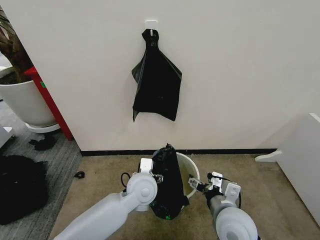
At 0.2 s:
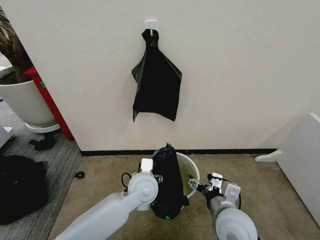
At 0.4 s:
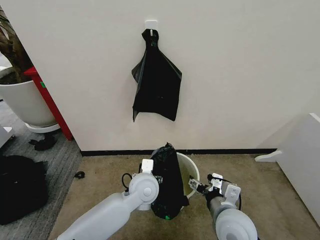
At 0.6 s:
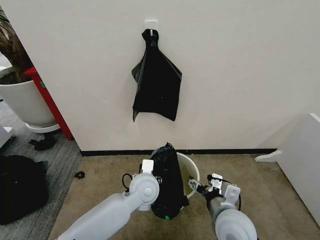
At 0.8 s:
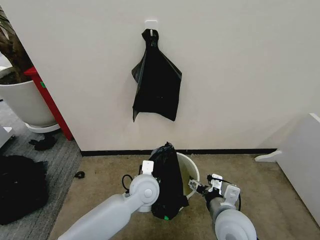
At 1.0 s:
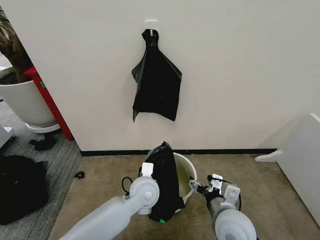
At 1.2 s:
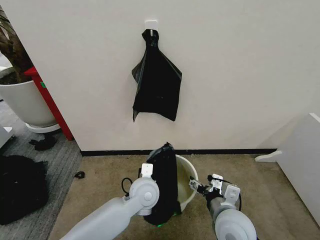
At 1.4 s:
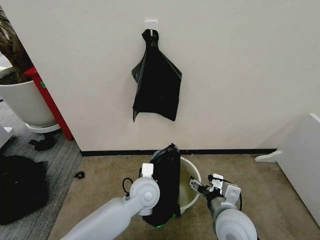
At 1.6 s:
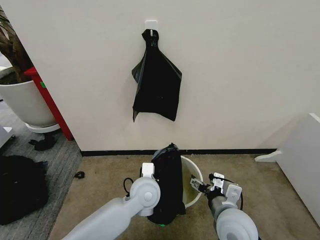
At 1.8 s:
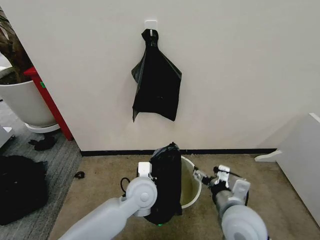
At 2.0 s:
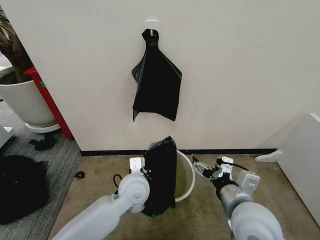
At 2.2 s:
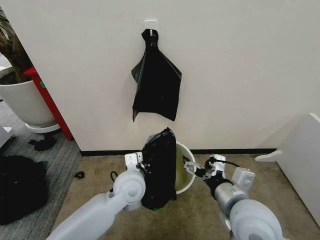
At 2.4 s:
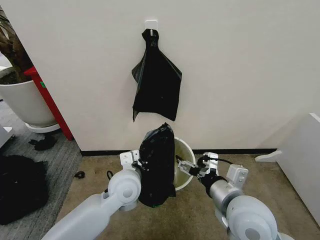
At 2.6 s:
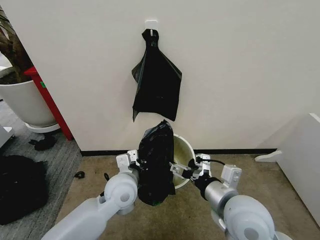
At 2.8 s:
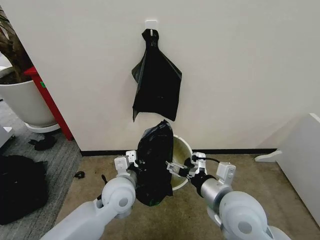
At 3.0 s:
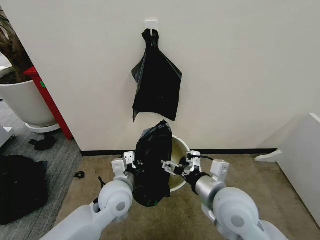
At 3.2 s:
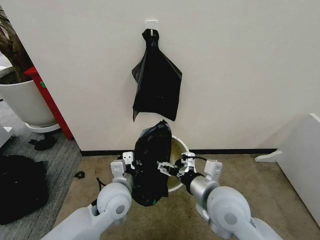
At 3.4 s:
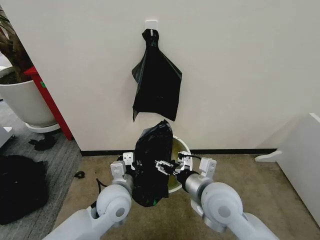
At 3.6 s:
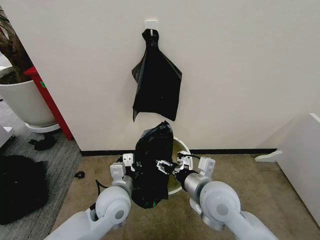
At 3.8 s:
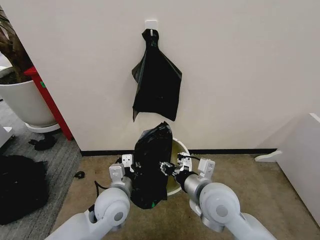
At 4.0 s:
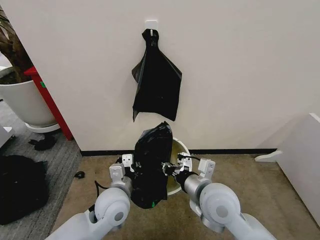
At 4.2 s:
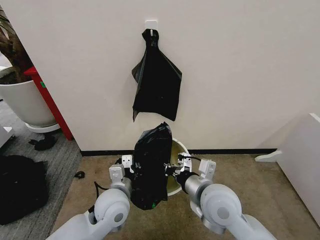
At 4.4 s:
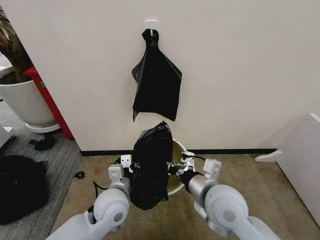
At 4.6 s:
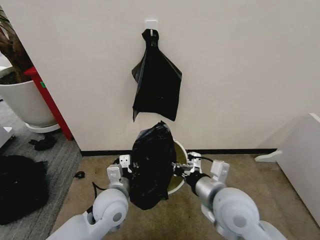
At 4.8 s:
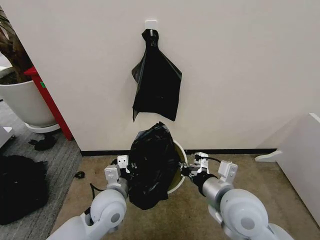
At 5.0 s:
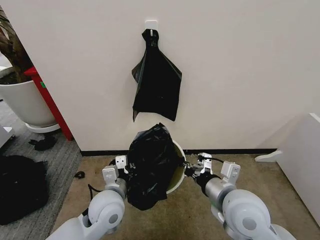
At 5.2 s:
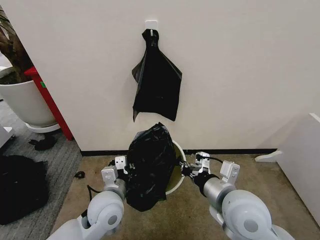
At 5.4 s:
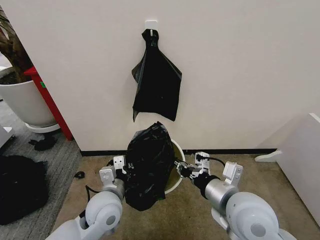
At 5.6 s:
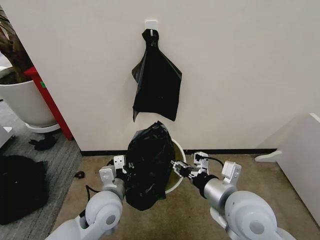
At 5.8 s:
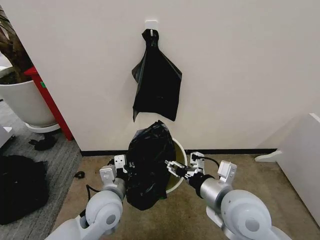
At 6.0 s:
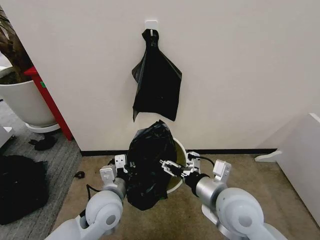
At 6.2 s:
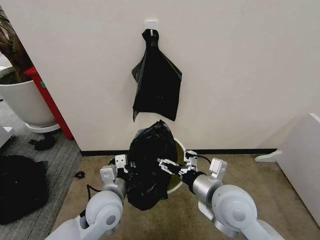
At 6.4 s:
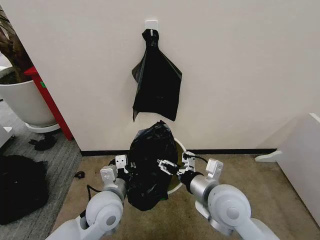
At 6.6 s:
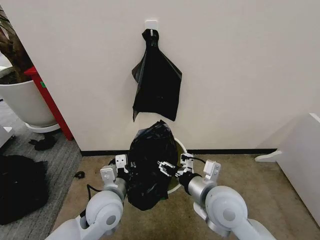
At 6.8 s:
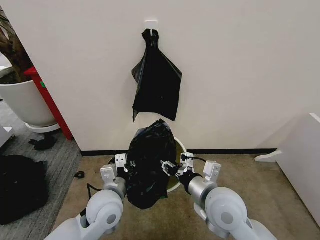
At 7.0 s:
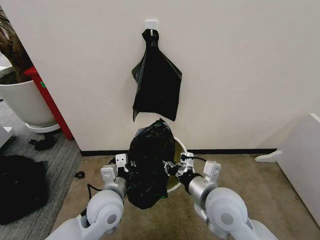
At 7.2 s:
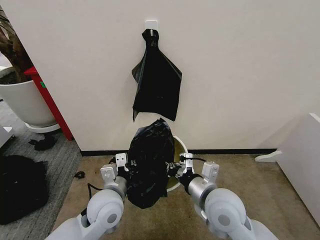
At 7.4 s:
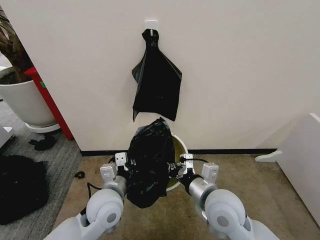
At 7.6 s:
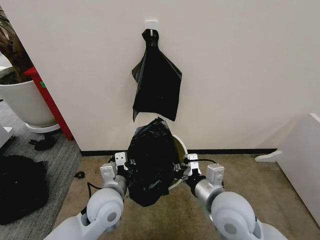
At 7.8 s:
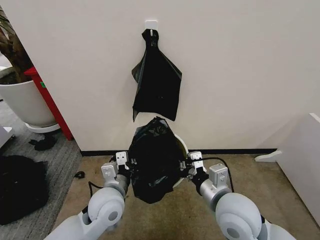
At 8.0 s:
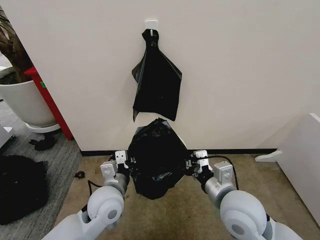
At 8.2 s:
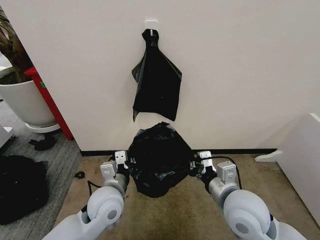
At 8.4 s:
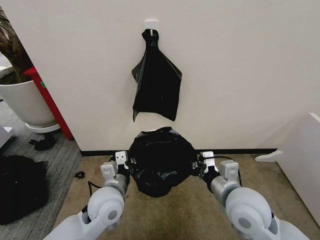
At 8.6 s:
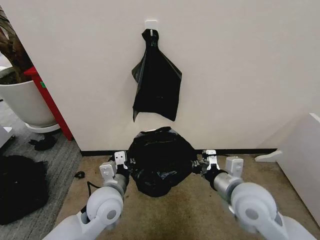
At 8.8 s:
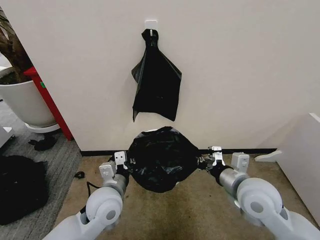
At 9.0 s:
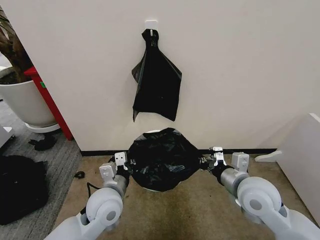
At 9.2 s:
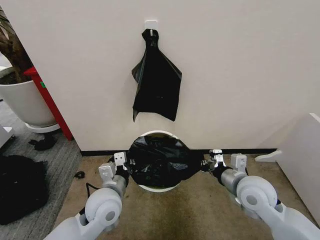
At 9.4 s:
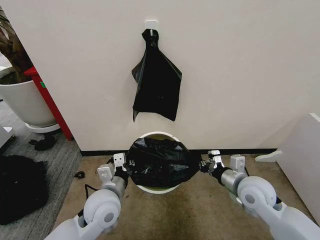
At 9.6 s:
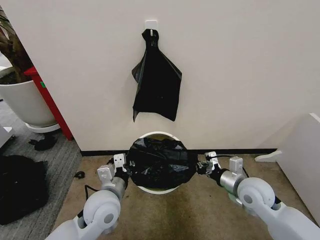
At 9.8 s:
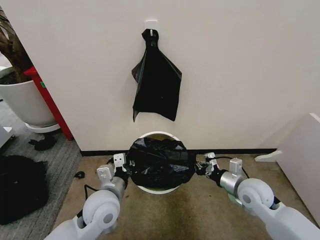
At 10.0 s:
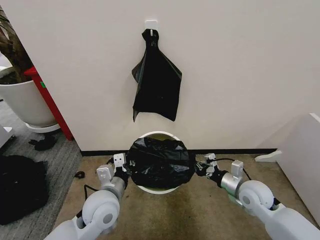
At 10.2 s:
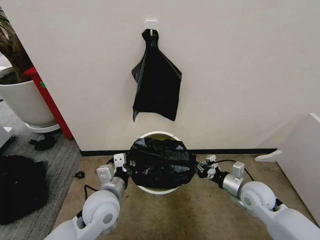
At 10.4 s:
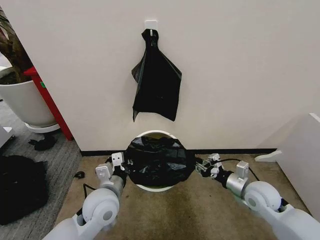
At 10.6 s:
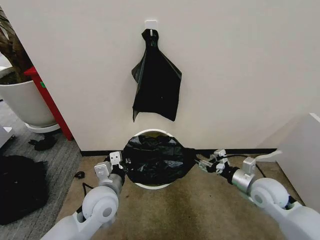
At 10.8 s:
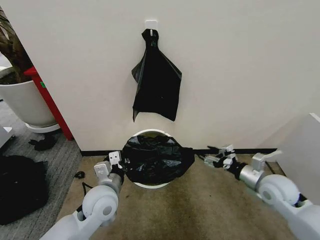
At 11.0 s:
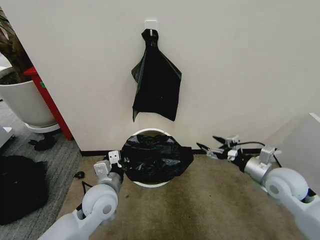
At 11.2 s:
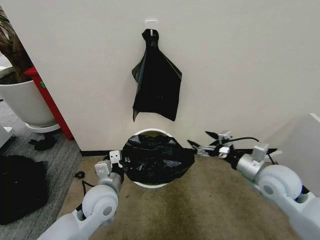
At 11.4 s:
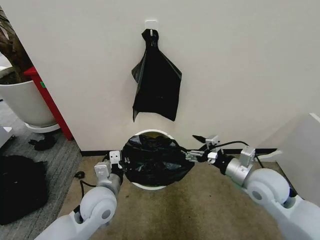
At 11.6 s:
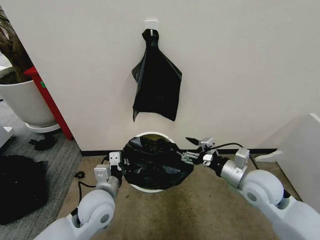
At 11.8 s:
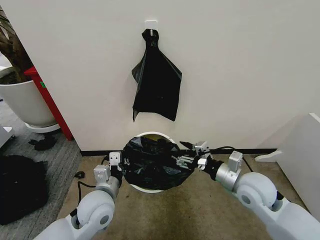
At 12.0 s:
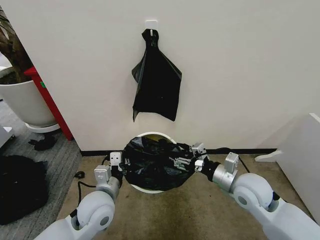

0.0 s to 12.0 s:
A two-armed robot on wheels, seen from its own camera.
Task of the whole recording: Place the garbage bag over the trash bin.
0.0 to 1.6 s: The left gripper closes its fingers.
1.6 to 3.0 s: The left gripper shifts some 10 cm to the left. The right gripper moves upward, approximately 5 cm.
3.0 to 4.4 s: The right gripper closes its fingers.
4.4 to 6.0 s: The right gripper opens up.
6.0 to 7.6 s: The right gripper closes.
7.6 to 9.0 s: The right gripper travels to the right by roughly 10 cm.
9.0 to 10.4 s: The right gripper shifts roughly 15 cm downward and to the right.
10.4 to 12.0 s: The right gripper travels upward and to the left by some 10 cm, and opens.

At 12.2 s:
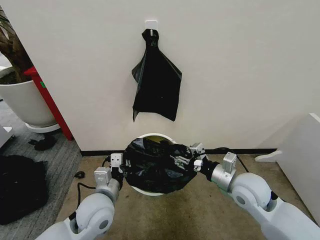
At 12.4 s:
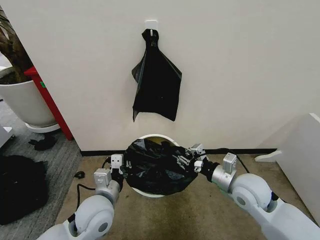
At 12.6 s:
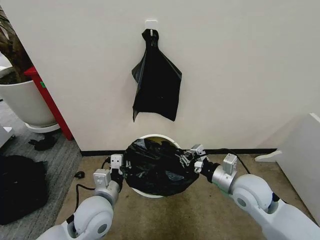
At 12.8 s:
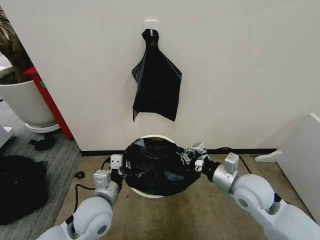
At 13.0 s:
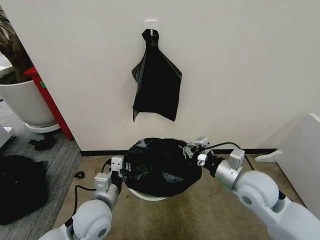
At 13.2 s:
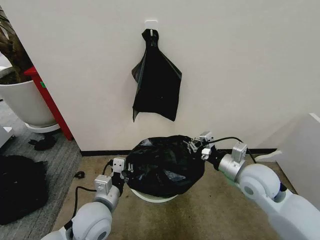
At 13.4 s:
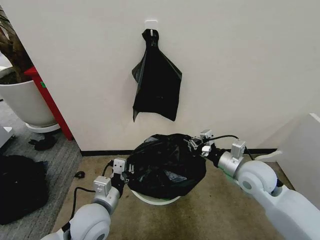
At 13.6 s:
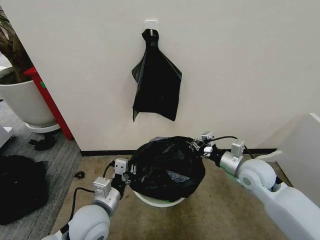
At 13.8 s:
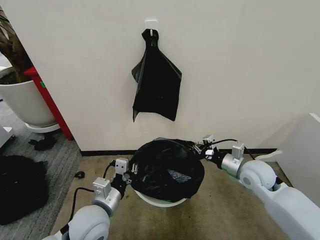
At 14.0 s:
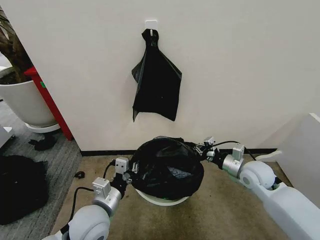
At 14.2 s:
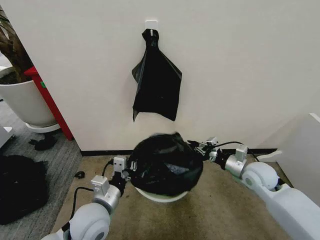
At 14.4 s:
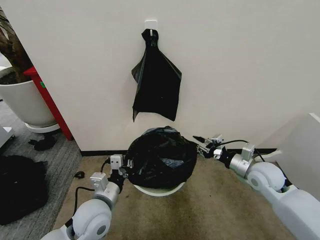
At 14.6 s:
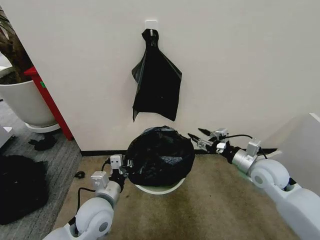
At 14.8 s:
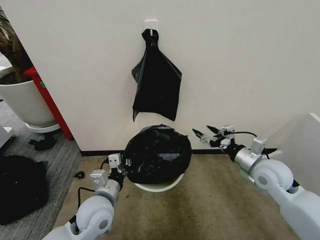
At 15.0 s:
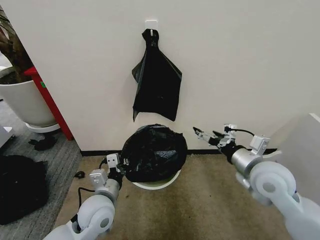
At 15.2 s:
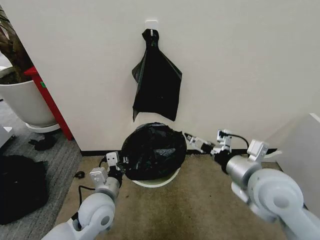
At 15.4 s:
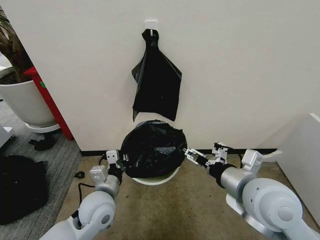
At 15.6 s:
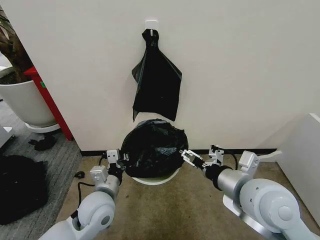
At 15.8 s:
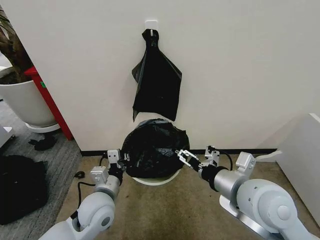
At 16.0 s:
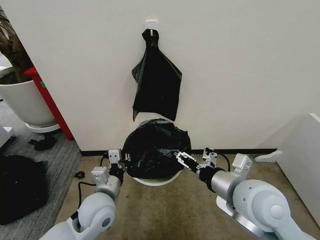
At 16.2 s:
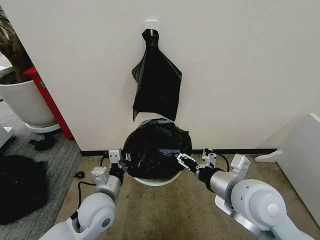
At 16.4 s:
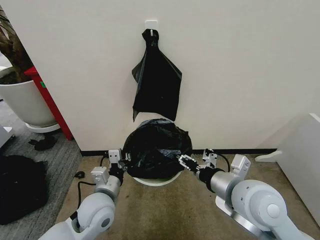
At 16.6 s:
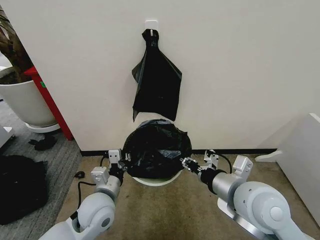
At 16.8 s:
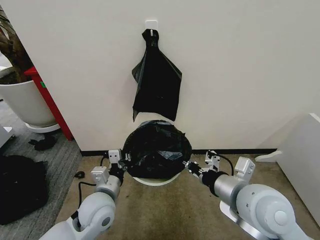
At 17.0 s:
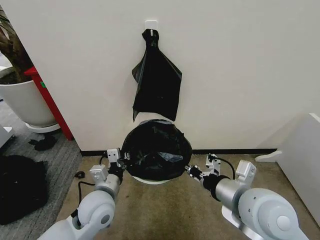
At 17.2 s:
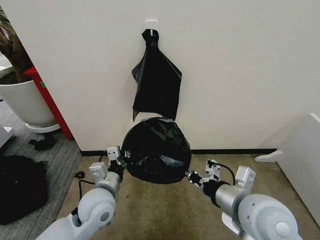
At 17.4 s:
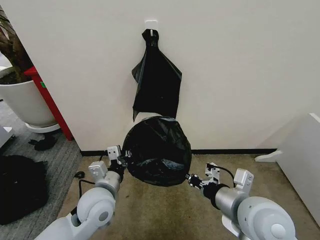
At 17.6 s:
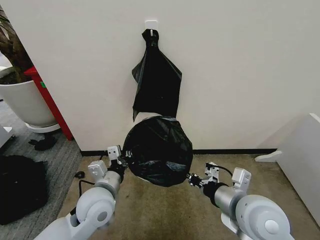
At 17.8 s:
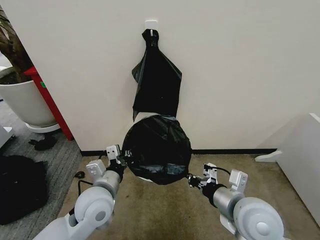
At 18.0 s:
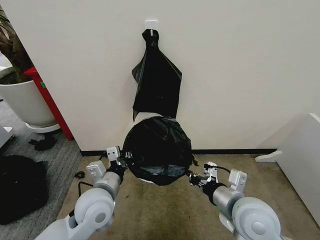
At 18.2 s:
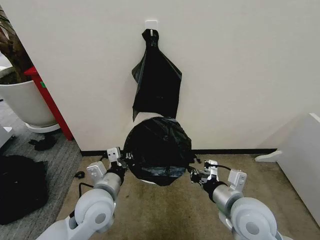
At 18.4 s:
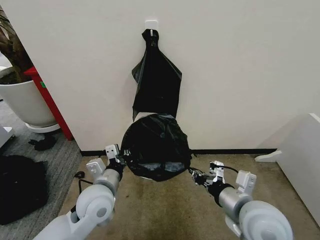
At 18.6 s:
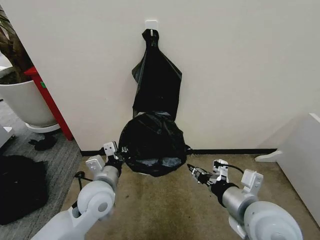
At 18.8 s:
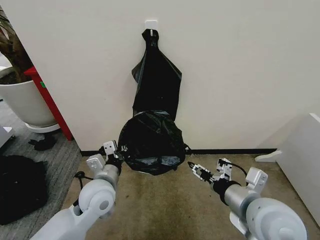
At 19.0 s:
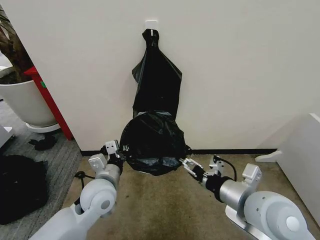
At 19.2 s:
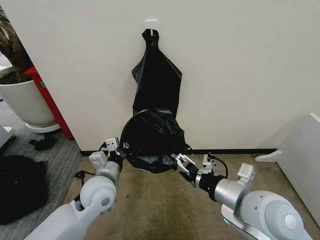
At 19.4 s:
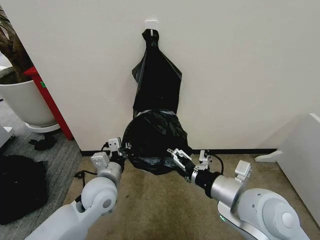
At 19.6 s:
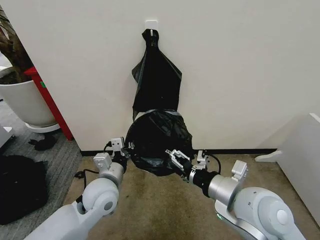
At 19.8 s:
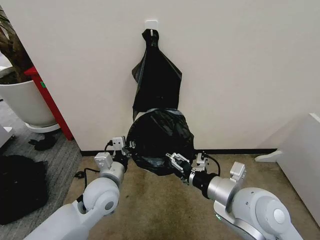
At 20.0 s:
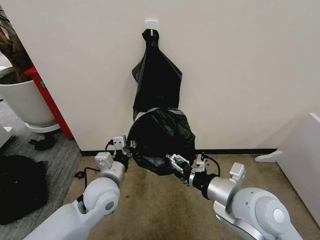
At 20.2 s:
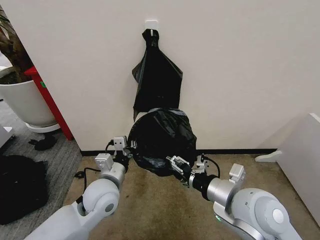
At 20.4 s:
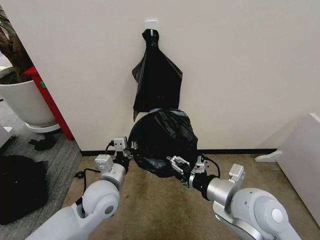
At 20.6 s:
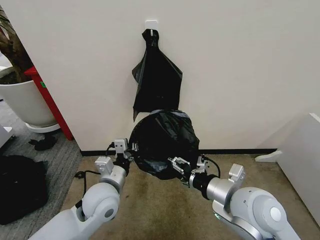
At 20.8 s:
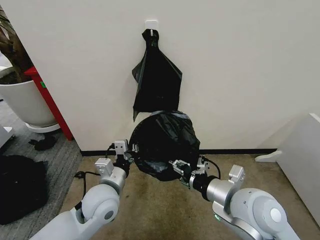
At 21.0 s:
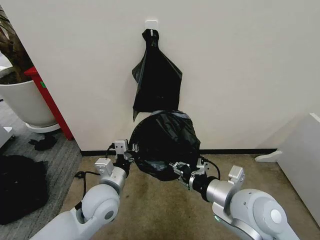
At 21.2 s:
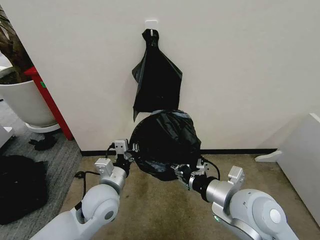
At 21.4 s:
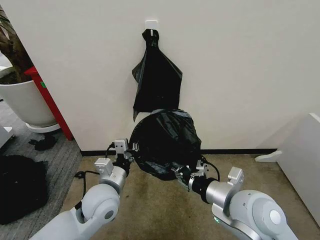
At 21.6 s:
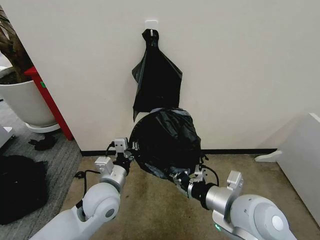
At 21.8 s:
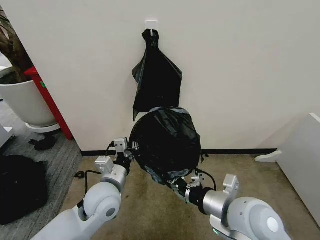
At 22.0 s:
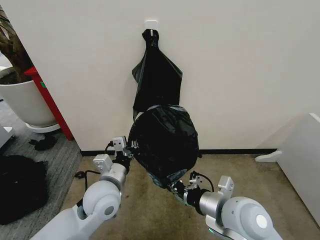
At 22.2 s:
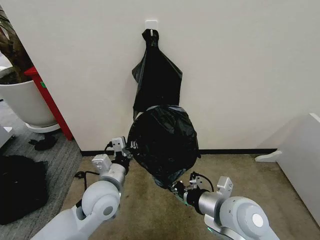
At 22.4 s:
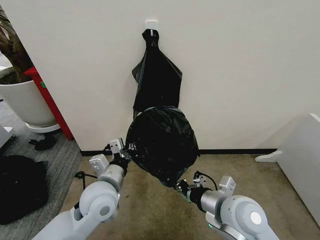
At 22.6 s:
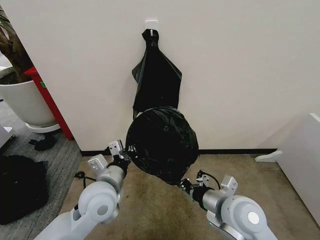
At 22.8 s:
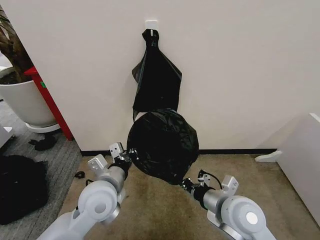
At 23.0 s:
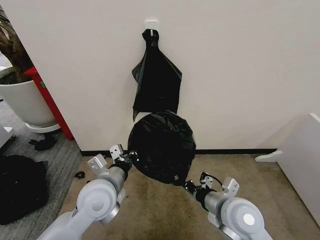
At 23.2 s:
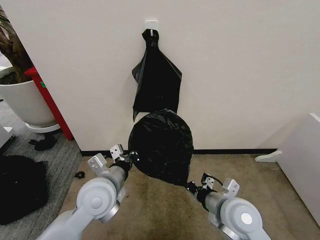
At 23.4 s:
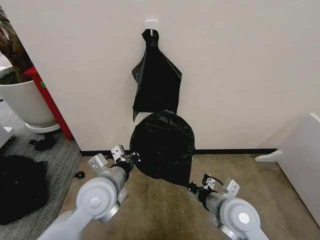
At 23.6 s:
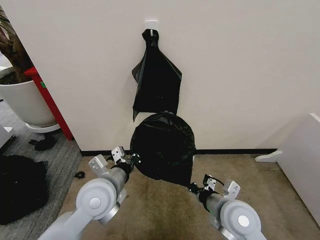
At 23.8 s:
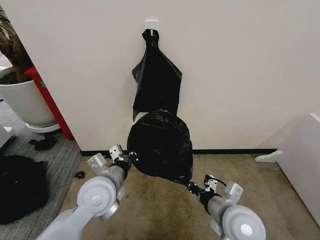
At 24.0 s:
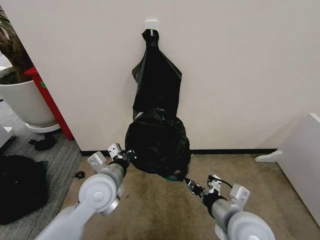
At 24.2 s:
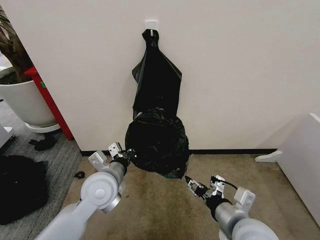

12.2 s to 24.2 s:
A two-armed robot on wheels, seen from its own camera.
Task of the whole recording: Place the garbage bag over the trash bin.
12.2 to 13.8 s: The right gripper shifts approximately 10 cm forward and to the right, and closes up.
13.8 to 15.2 s: The right gripper is displaced upward, backward and to the left by some 15 cm, and opens its fingers.
15.2 to 16.6 s: The right gripper closes.
16.6 to 18.2 s: The right gripper shifts about 5 cm downward.
18.2 to 19.8 s: The right gripper is displaced upward by some 5 cm, and opens.
19.8 to 21.2 s: The right gripper closes its fingers.
21.2 to 22.6 s: The right gripper heads downward, covering some 5 cm.
22.6 to 24.2 s: The right gripper goes some 5 cm backward, and opens up.
